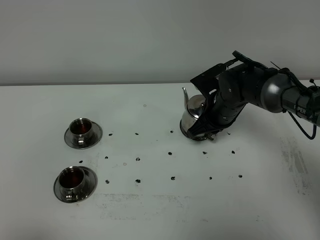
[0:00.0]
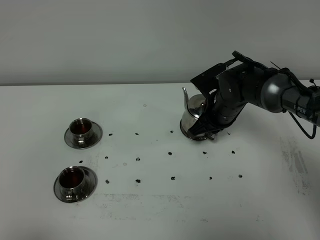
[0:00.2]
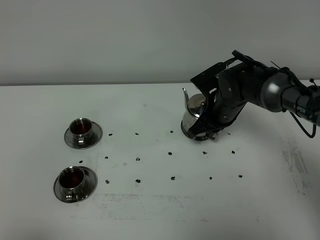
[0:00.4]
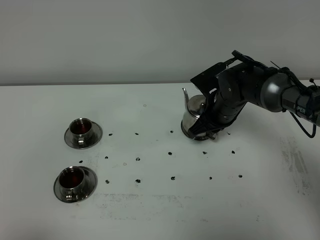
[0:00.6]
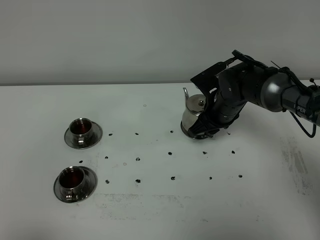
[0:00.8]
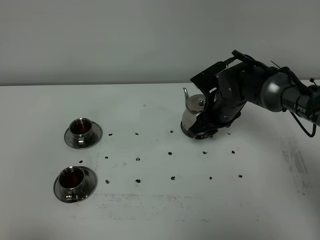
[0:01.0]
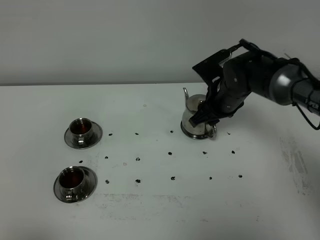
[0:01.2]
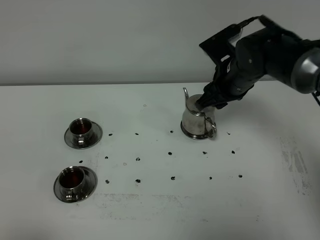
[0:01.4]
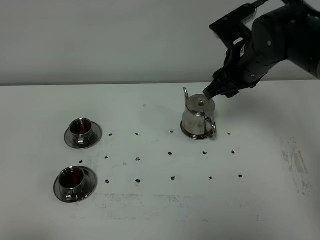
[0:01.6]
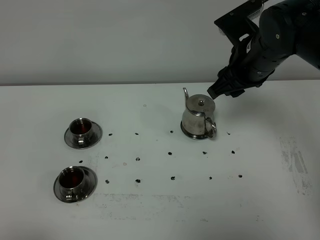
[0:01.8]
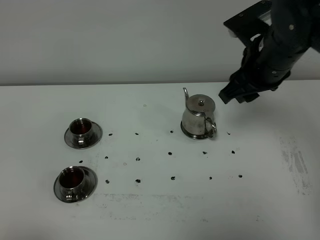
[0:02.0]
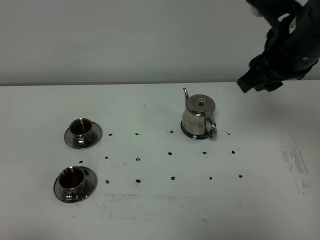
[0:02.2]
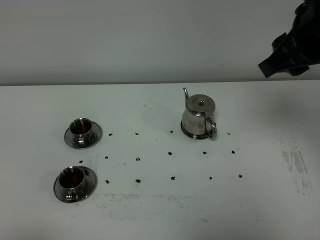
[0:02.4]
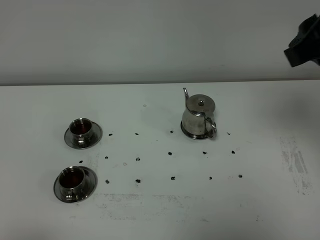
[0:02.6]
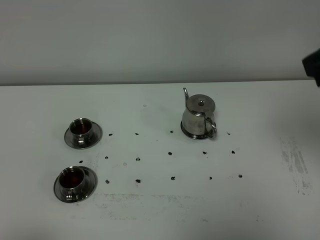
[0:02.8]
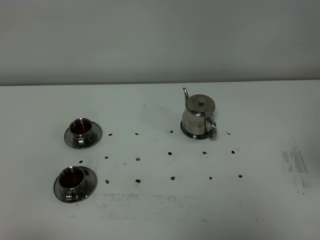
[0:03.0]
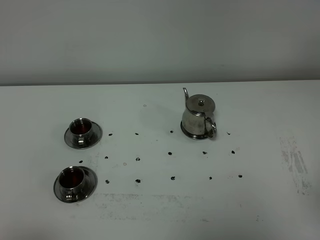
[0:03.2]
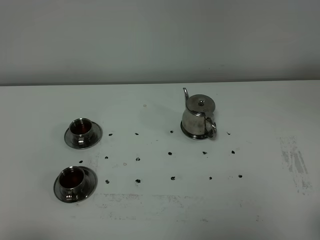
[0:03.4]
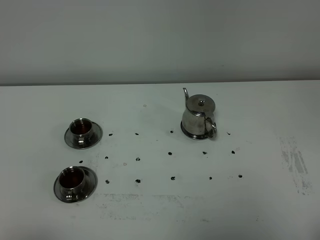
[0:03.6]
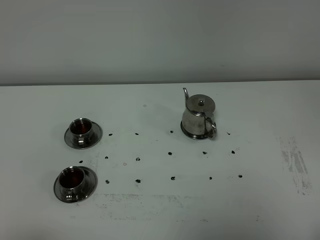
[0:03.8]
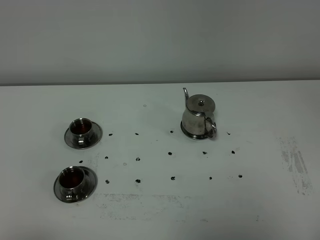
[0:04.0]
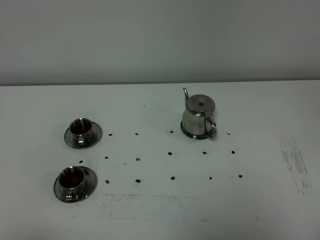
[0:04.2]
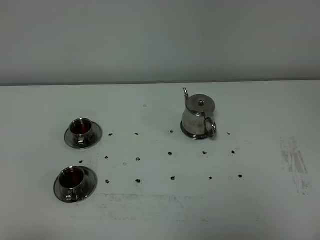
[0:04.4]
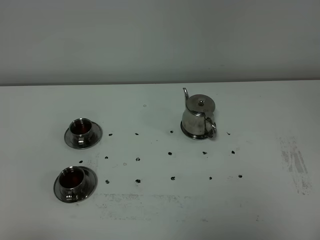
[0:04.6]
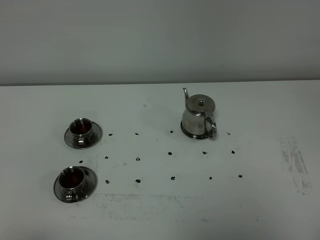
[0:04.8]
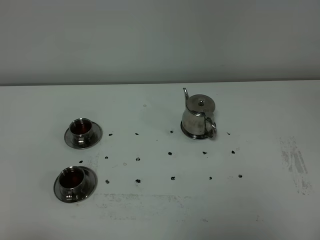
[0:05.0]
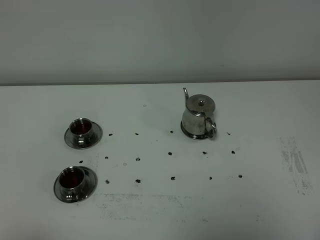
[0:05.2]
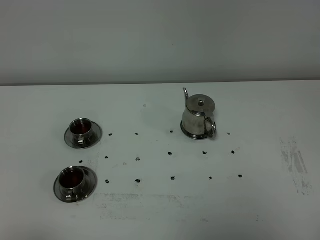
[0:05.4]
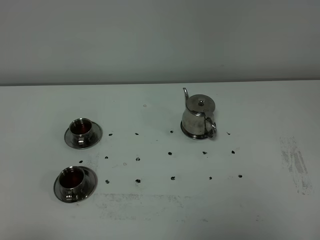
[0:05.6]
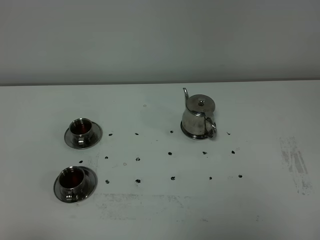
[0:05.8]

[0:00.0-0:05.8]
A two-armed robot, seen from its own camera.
Task of the whole recording: grasp the stainless steel teapot and pour the tea into the two stainless steel teacups one by one, put the stainless steel teapot back in its original place.
0.0 to 1.4 s: The right gripper shifts roughly 10 cm upward, and opens.
1.4 to 2.8 s: The right gripper moves backward, upward and to the right, about 30 cm.
2.8 to 4.4 s: The right gripper moves downward and backward, roughly 25 cm.

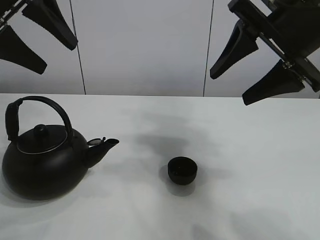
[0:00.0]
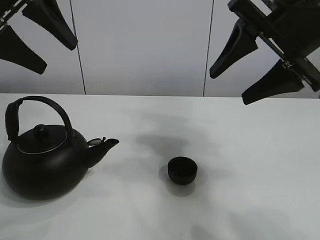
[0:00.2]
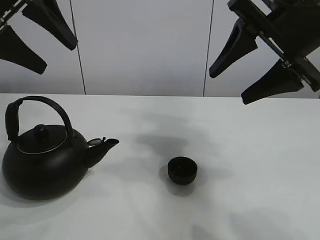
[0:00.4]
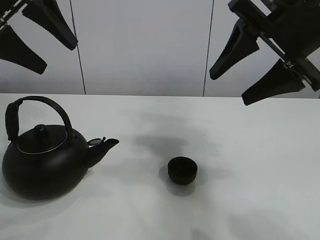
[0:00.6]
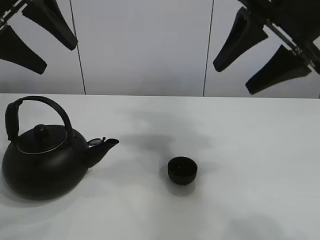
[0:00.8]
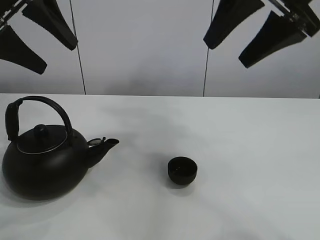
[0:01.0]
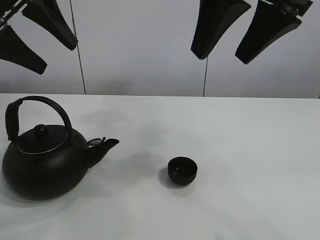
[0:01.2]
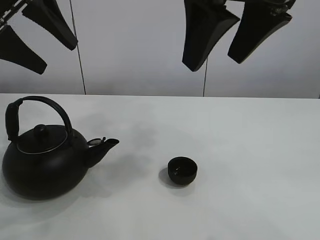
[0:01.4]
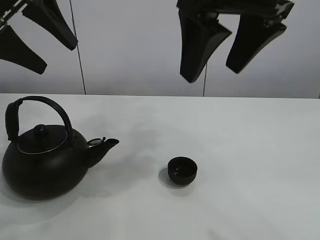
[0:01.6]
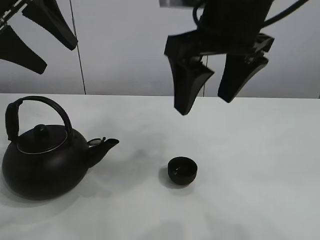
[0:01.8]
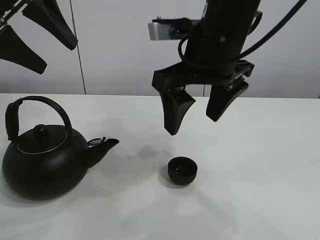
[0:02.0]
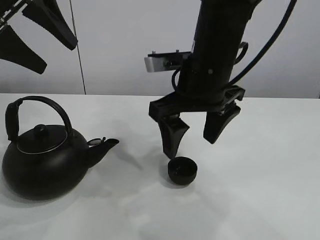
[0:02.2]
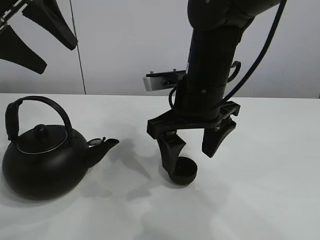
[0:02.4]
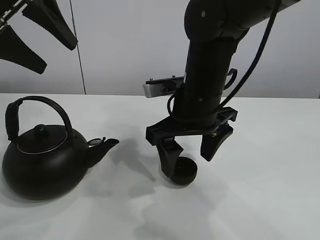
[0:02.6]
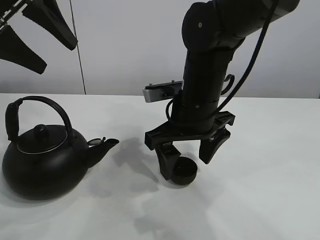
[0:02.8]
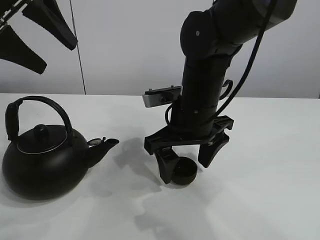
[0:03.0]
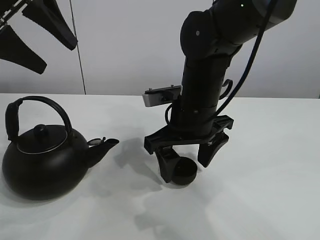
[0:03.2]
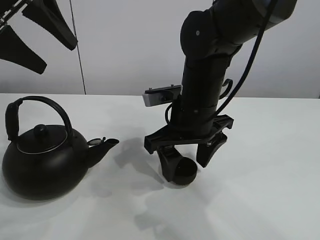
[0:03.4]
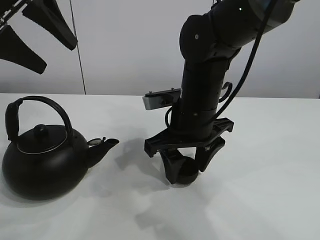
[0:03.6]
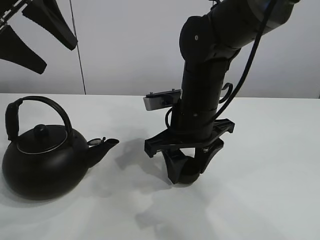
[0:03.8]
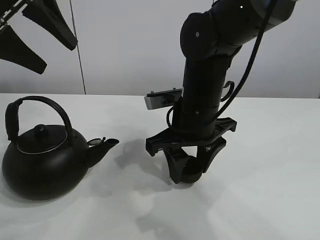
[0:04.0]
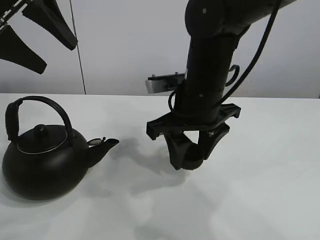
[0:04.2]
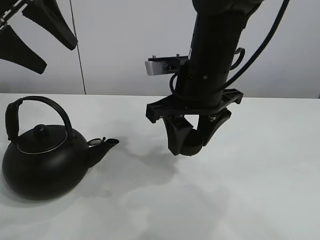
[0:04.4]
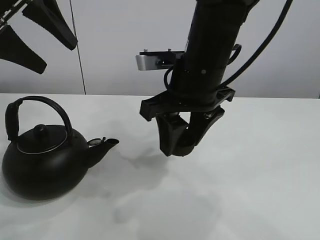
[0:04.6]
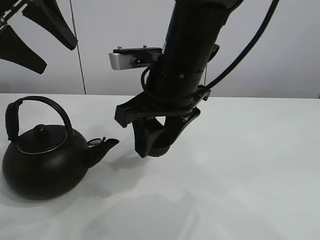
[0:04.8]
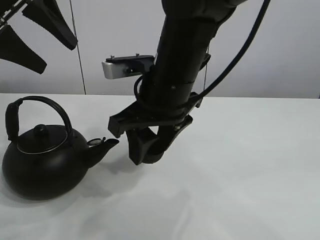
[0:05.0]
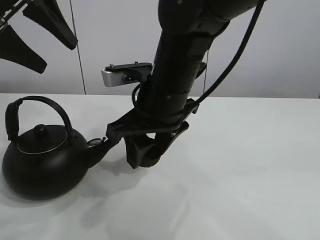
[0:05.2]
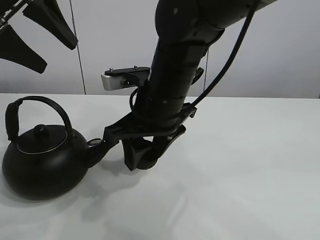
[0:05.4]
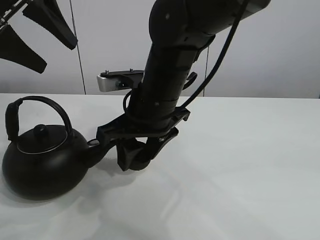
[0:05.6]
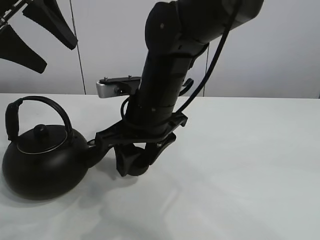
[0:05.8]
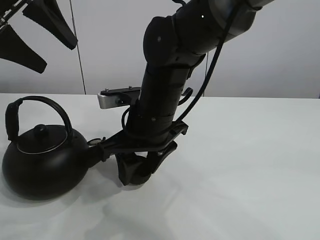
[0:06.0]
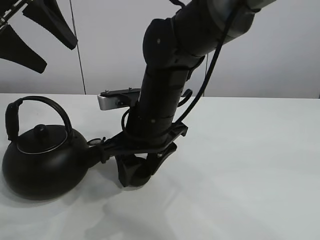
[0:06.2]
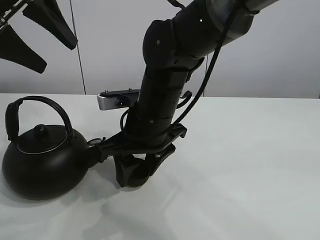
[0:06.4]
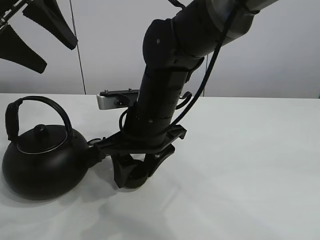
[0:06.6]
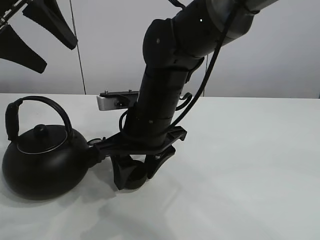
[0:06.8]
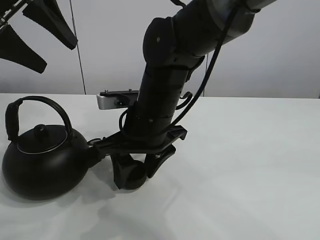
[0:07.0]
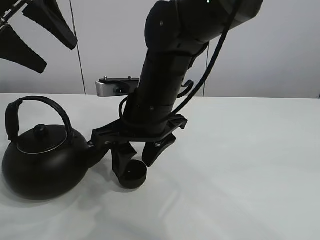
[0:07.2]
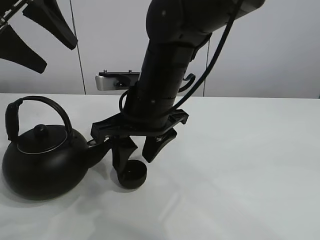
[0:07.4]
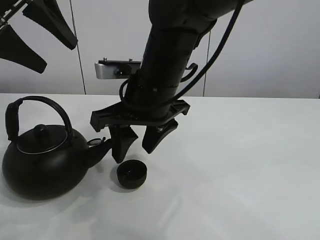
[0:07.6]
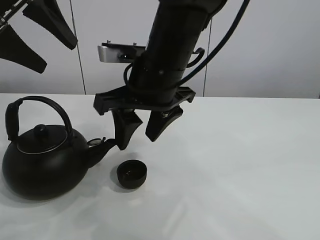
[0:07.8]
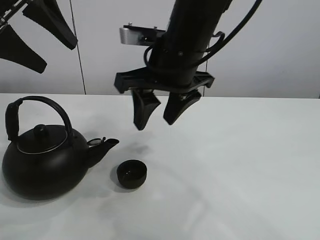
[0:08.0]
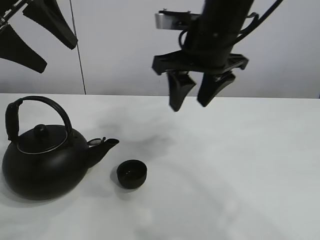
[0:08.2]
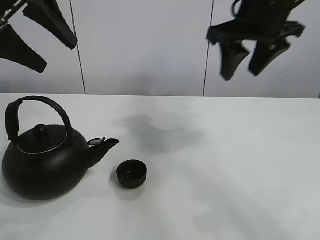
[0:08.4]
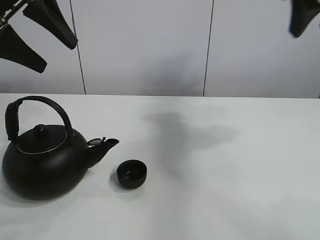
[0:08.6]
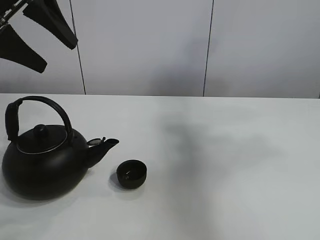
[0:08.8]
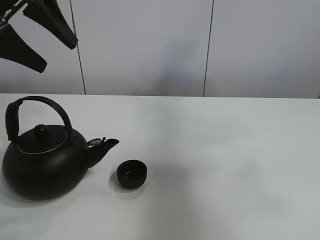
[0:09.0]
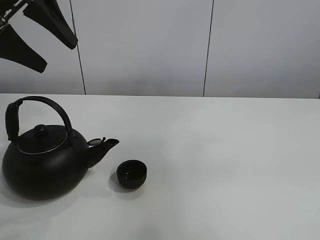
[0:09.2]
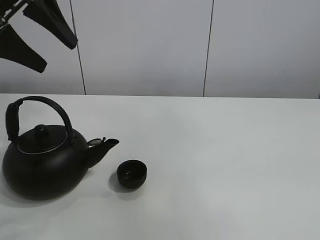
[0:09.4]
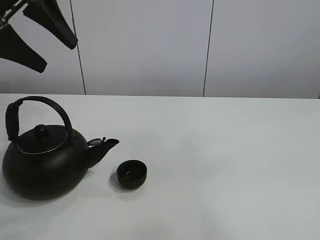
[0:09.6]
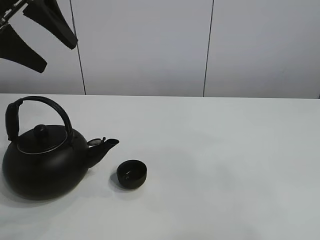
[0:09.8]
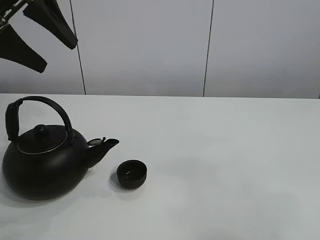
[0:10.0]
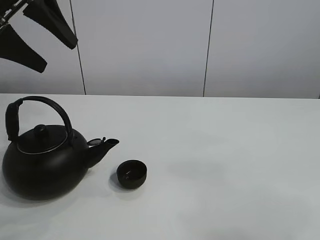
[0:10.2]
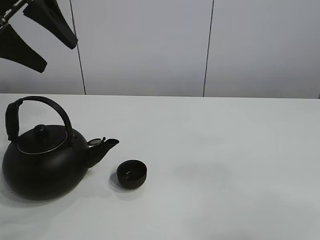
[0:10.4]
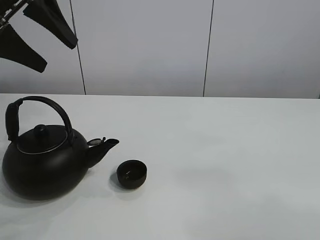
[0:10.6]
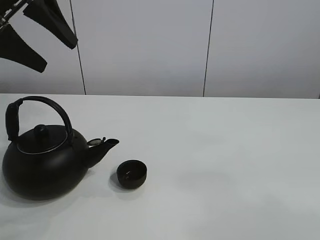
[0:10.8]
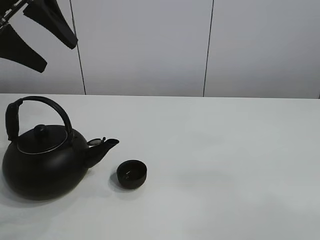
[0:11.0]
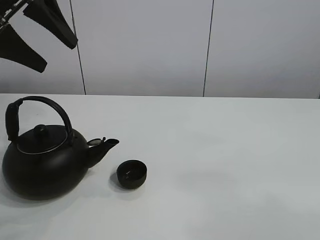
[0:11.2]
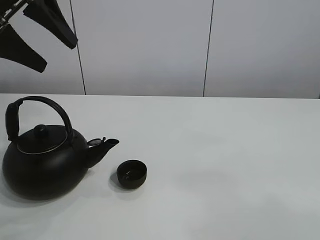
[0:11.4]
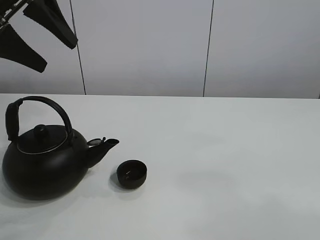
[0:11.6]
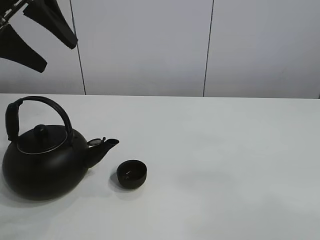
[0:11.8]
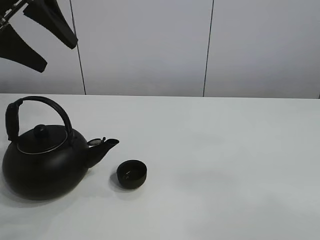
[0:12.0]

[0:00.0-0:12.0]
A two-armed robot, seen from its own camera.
Task of the whole recording: pour tea into the teacup.
Step, 0.0 to 3.8 s: Pick up the teacup with the right gripper.
Step, 4.2 to 7.2 s: Place the teacup in the center of view with the right gripper.
1.6 to 3.0 s: The right gripper heads downward, covering roughly 20 cm.
3.0 to 4.4 s: The right gripper closes its fingers.
4.4 to 6.0 s: The right gripper heads to the left and downward, covering approximately 10 cm.
6.0 to 7.6 s: The grippers make only small movements.
7.6 to 9.0 s: The right gripper is displaced to the right and upward by about 40 cm.
9.0 to 10.4 s: The right gripper travels downward and backward by some 30 cm.

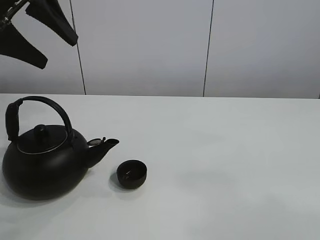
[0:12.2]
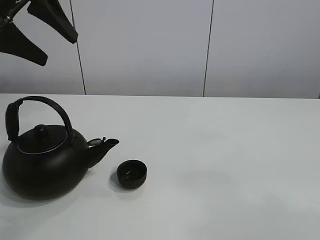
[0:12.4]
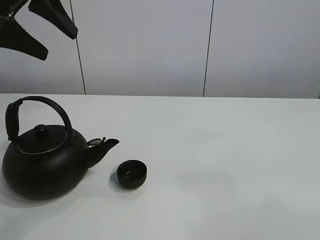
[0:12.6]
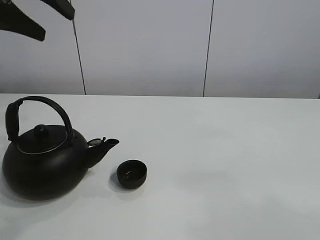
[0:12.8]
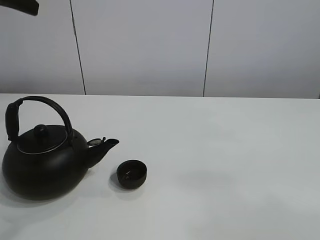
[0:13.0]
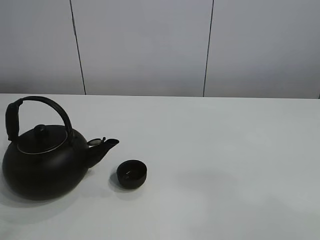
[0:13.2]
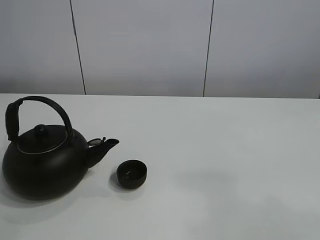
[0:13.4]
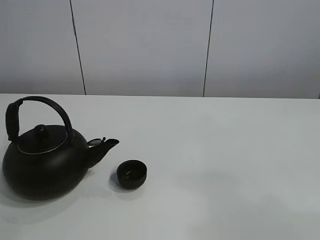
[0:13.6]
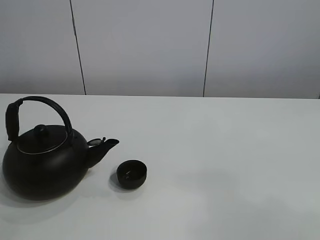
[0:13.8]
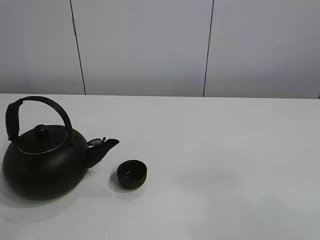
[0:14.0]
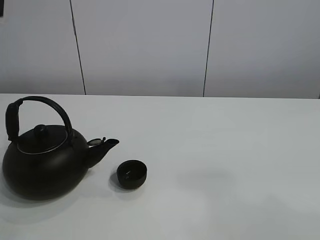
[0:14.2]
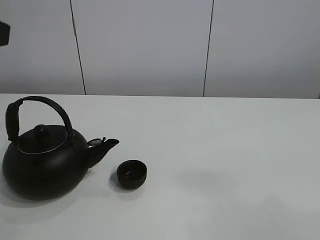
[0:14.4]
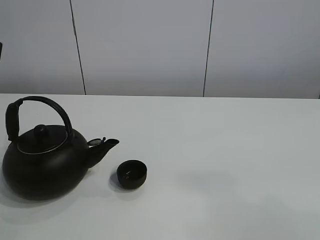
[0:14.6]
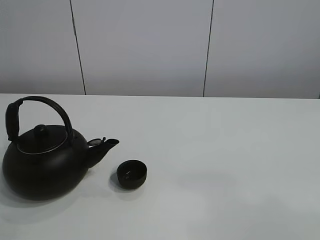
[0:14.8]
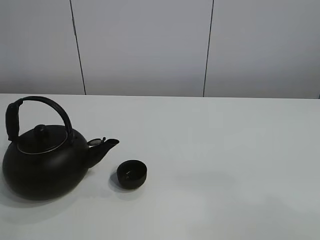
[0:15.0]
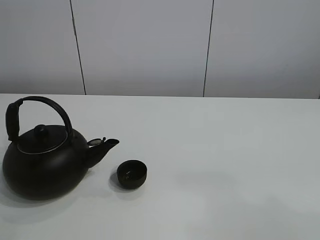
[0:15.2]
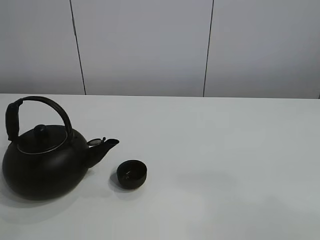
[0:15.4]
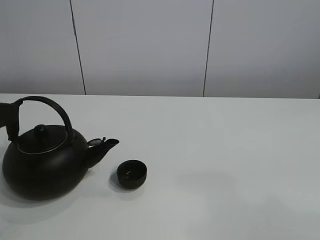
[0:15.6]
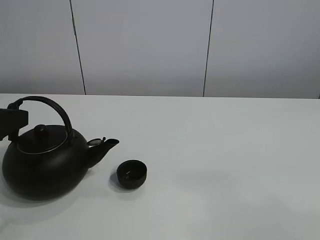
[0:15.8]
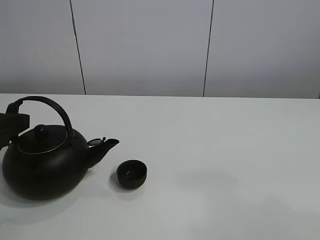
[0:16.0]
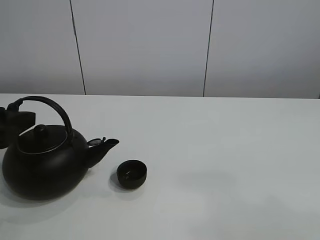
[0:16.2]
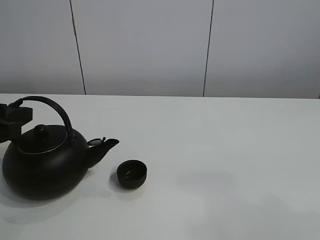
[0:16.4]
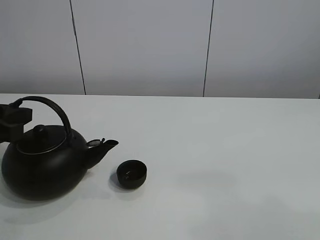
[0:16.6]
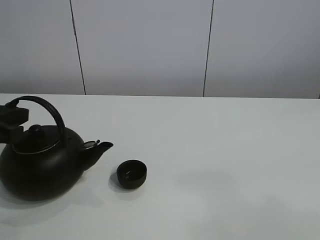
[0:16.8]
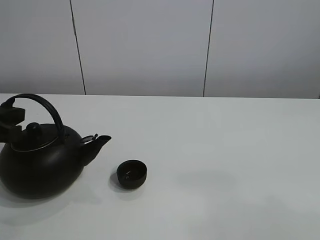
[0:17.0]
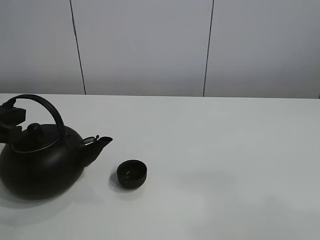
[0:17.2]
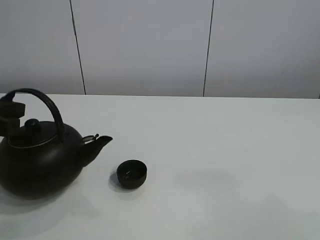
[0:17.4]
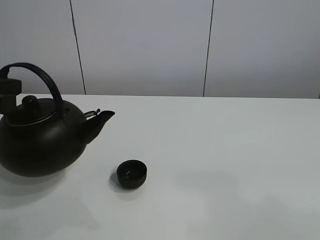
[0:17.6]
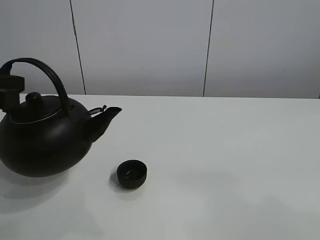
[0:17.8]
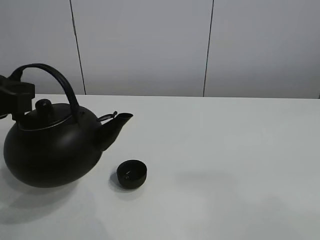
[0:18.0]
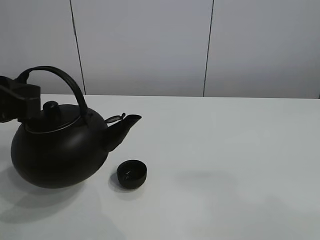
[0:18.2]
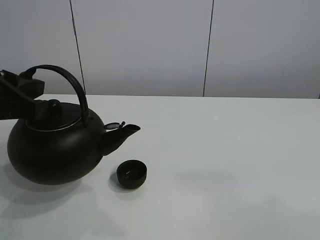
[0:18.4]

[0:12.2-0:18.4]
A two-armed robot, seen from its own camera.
Task of the whole recording: pour tea into the teacup.
Step, 12.2 to 16.6 s: Pick up the teapot with the left gripper.
12.2 to 13.8 s: The left gripper travels upward and backward by some 20 cm.
15.4 to 16.8 s: The left gripper goes approximately 10 cm downward and forward, and closes up.
16.8 to 18.4 s: The left gripper shifts about 10 cm upward and to the right.
